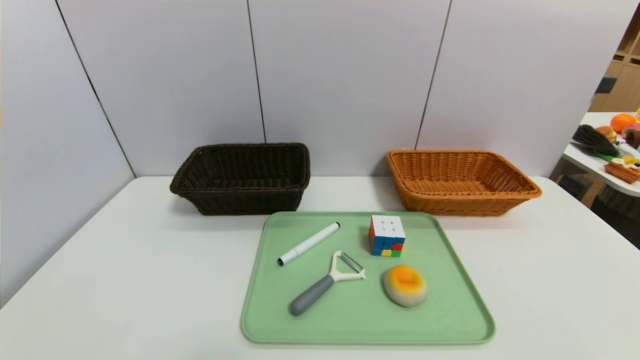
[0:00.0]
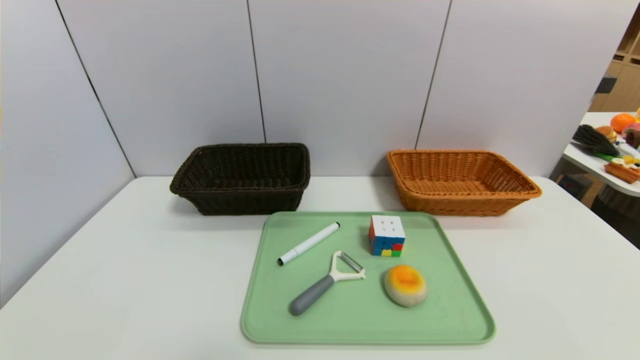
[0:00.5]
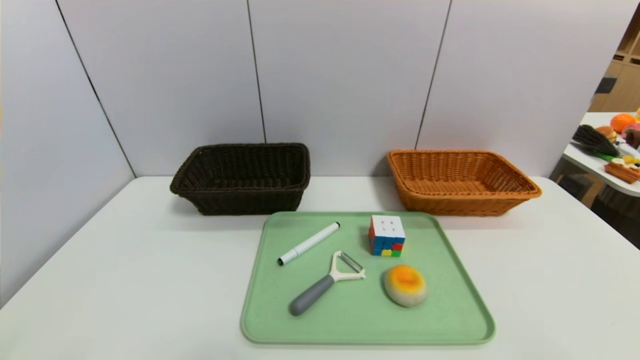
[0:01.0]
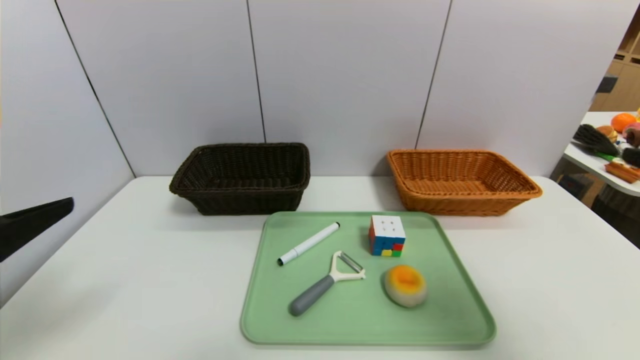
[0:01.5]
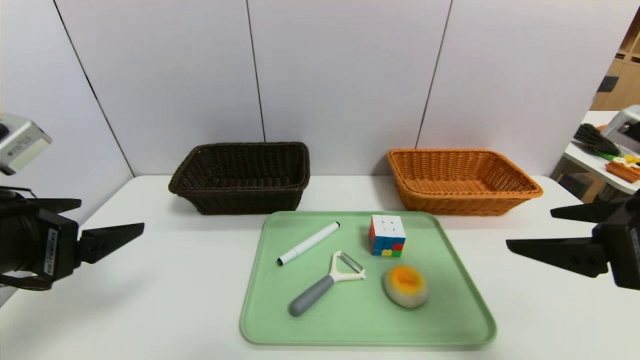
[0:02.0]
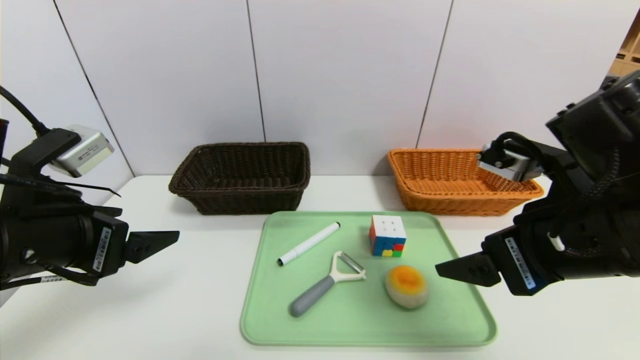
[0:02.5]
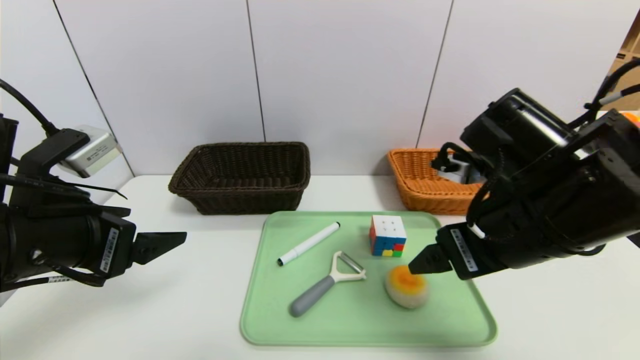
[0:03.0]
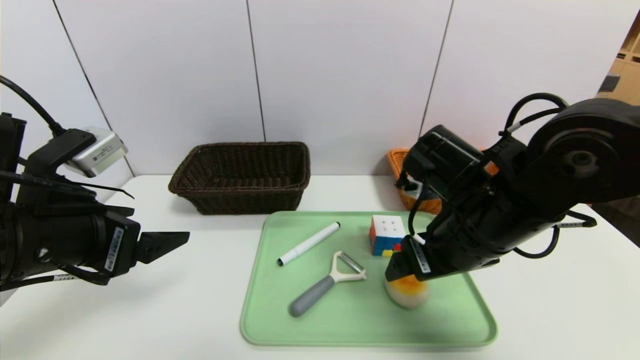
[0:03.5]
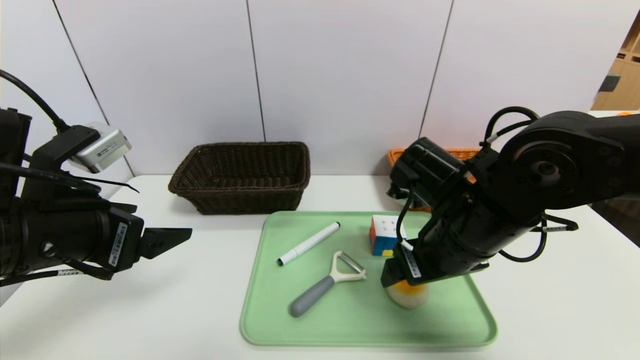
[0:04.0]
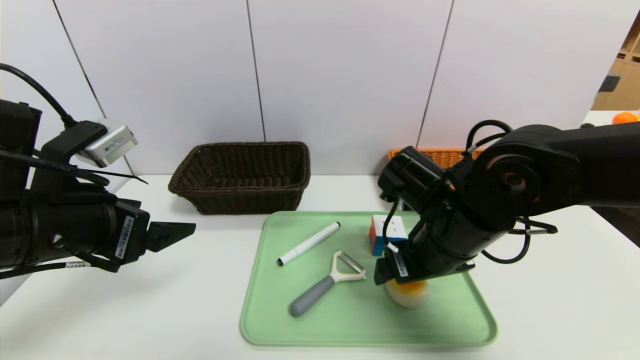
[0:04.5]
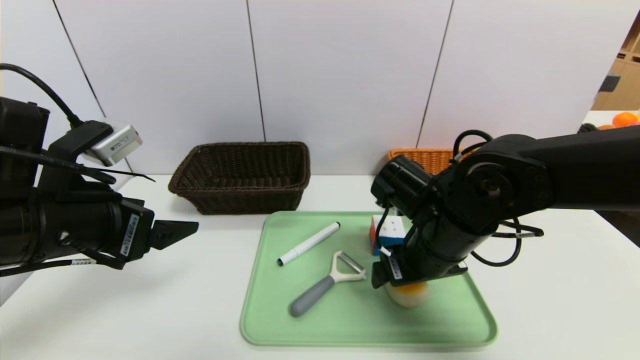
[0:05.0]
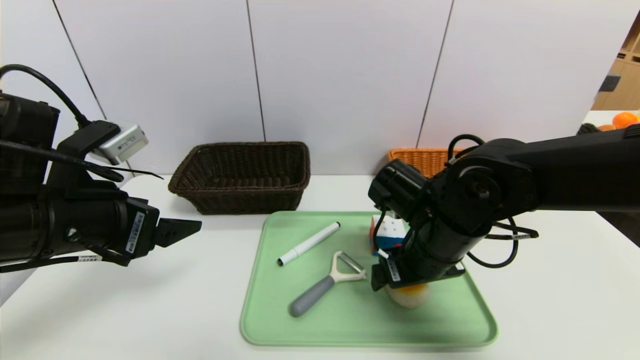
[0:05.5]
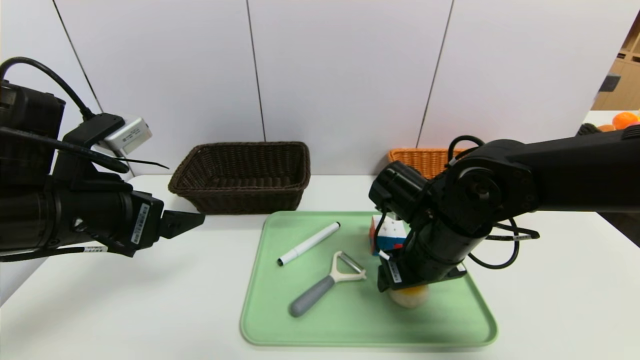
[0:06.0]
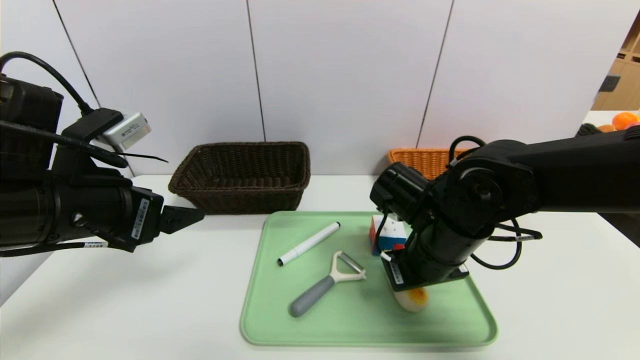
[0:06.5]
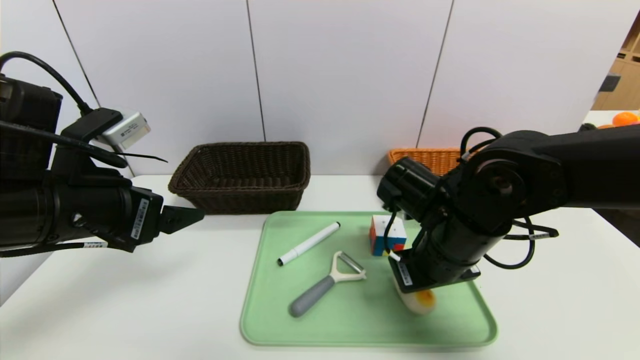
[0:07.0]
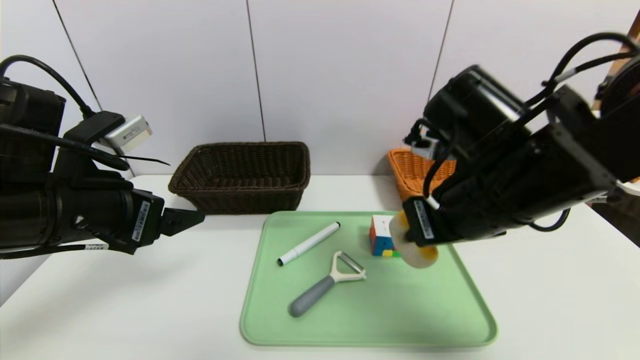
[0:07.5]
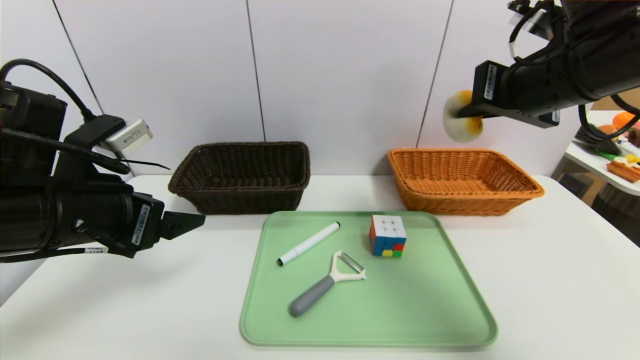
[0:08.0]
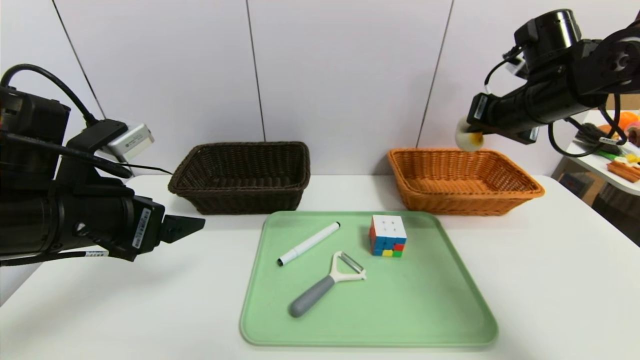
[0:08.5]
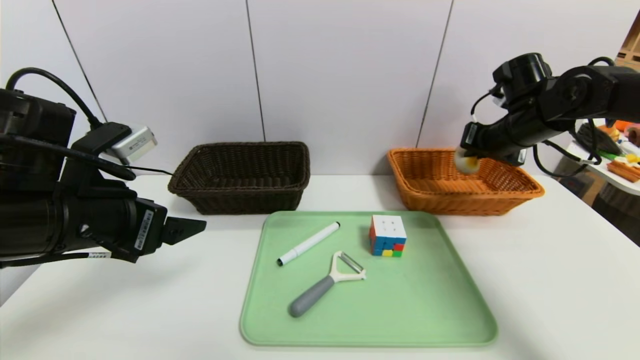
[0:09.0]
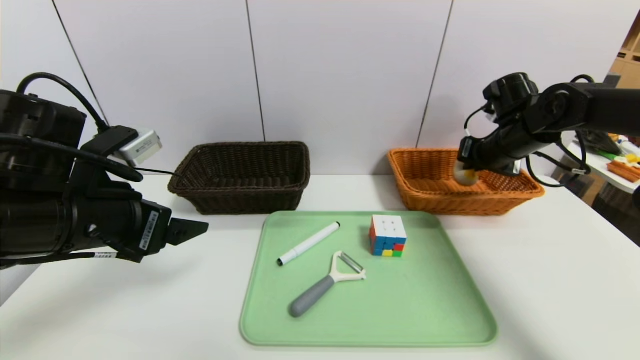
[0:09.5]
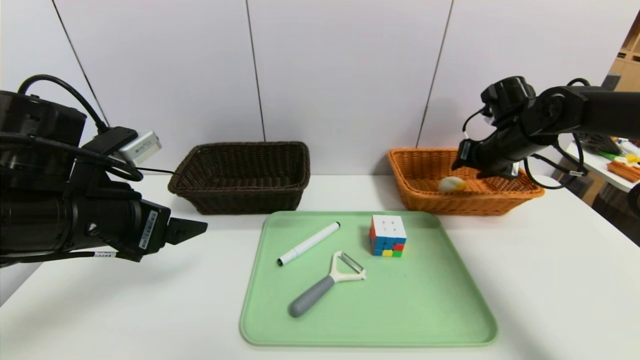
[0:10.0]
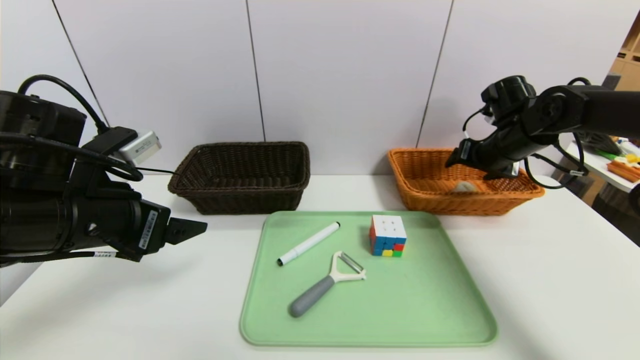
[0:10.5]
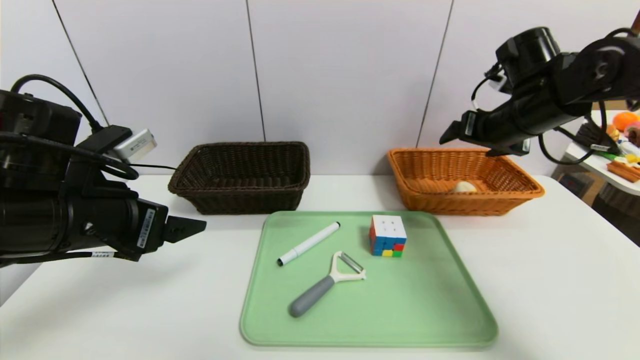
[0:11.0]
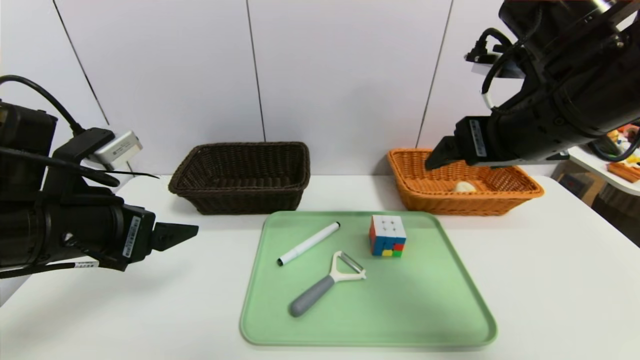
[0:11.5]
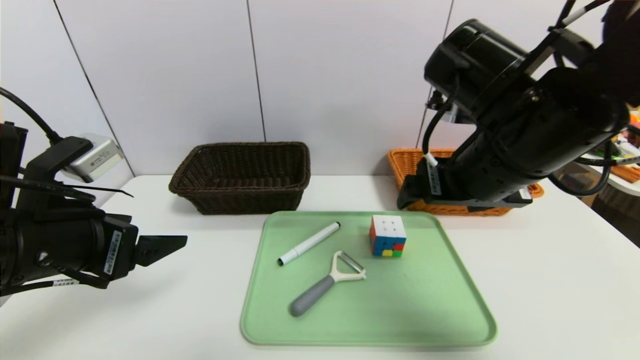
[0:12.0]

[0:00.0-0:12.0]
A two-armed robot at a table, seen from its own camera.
Task of the whole recording: place the food in the right basket with the right gripper, and place the non food items in the left basket with the left gripper.
Step, 0:00.0 to 0:06.5: Grasp the egg yolk pastry and put it in the right basket.
0:00.0 to 0:02.0: Both grippers travel together upward and forward, some 25 cm.
0:02.0 to 0:04.0: The right gripper travels to the left, forward and downward by some 20 cm.
0:04.0 to 0:06.0: The grippers stay close to where they were, moving slightly.
0:06.0 to 0:08.0: The right gripper heads upward and to the right, covering approximately 20 cm, and closes up.
0:08.0 to 0:10.0: The right gripper moves forward, downward and to the right, about 20 cm, and opens.
0:10.0 to 0:12.0: The right gripper heads backward, to the left and upward, covering about 25 cm, and opens.

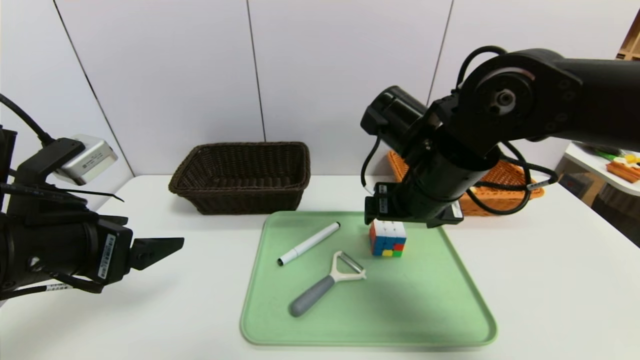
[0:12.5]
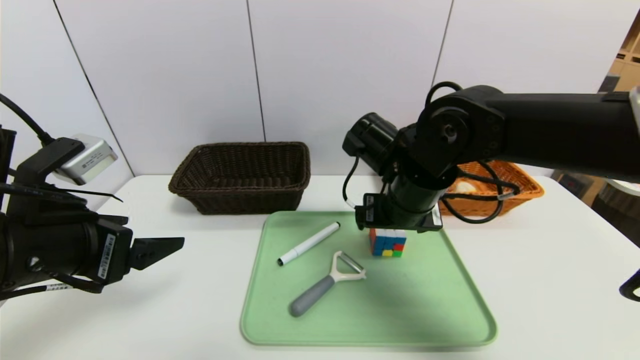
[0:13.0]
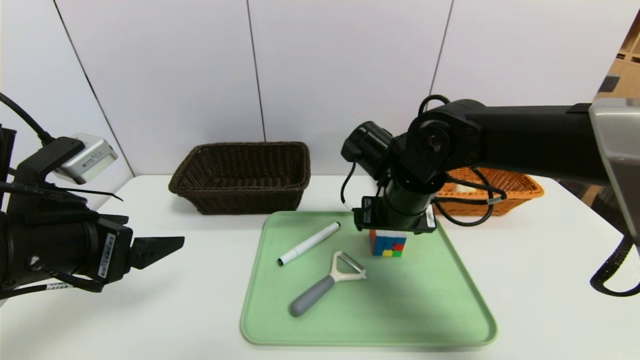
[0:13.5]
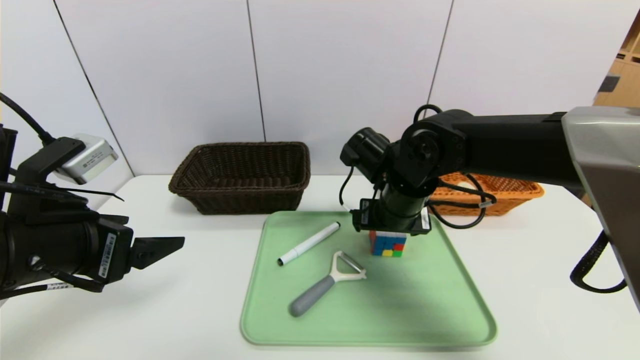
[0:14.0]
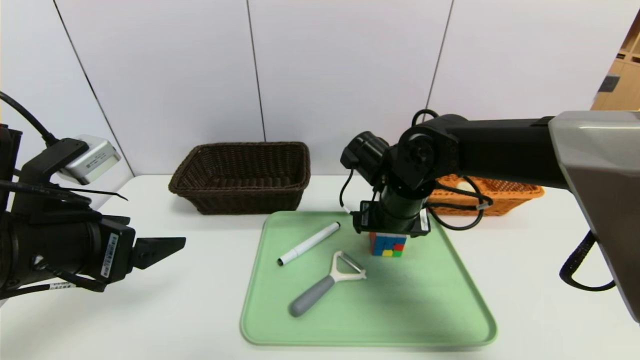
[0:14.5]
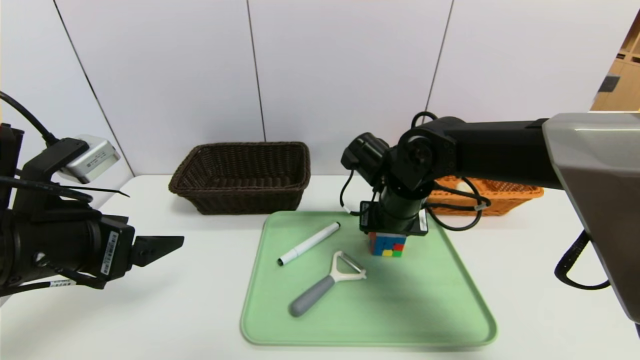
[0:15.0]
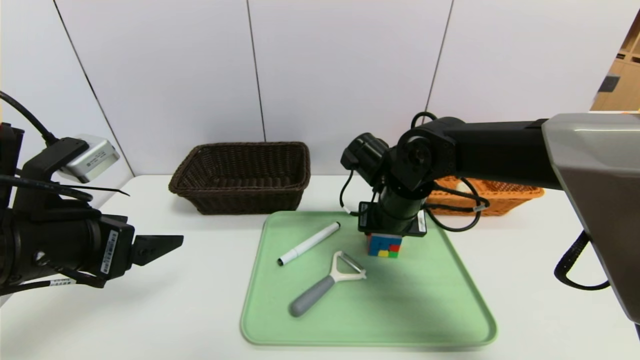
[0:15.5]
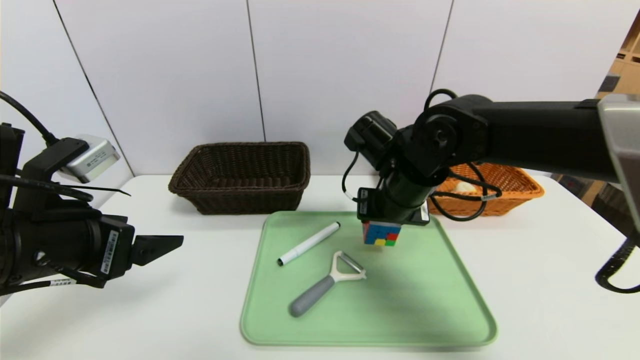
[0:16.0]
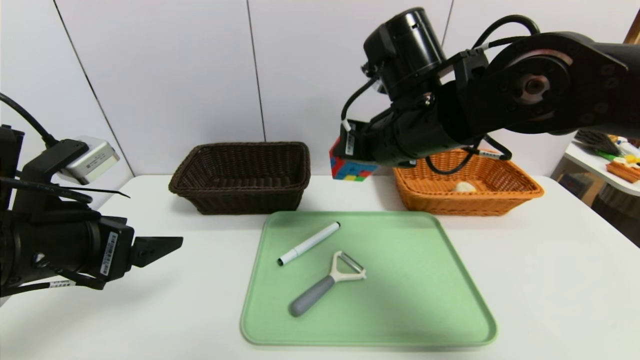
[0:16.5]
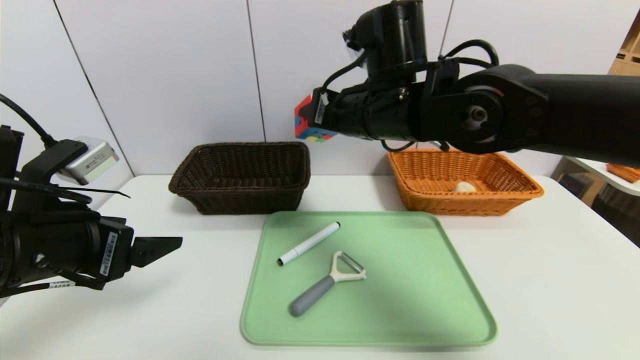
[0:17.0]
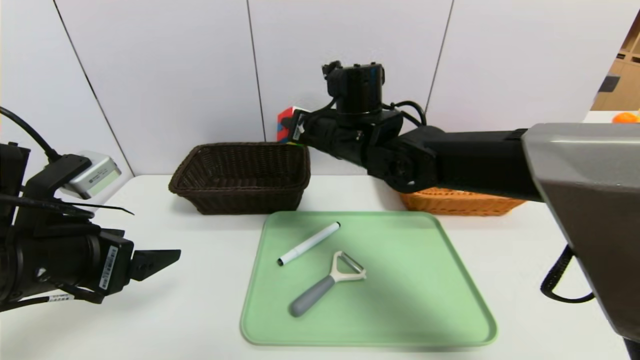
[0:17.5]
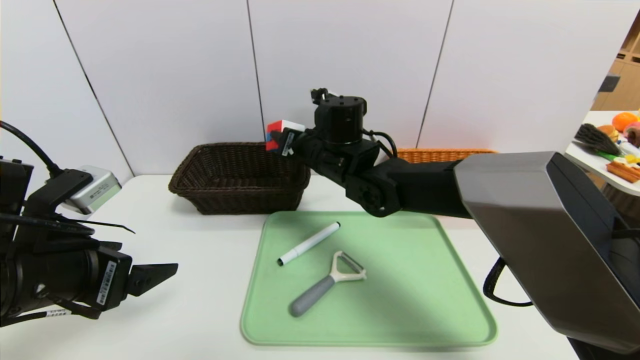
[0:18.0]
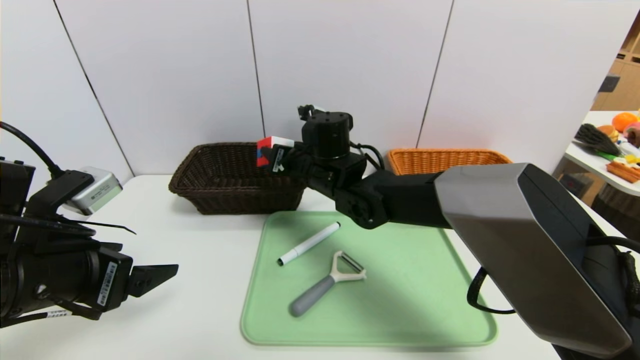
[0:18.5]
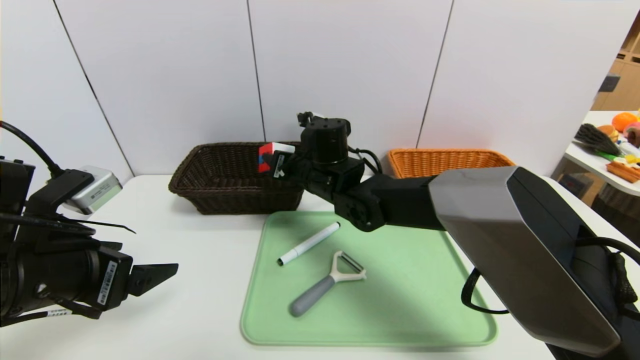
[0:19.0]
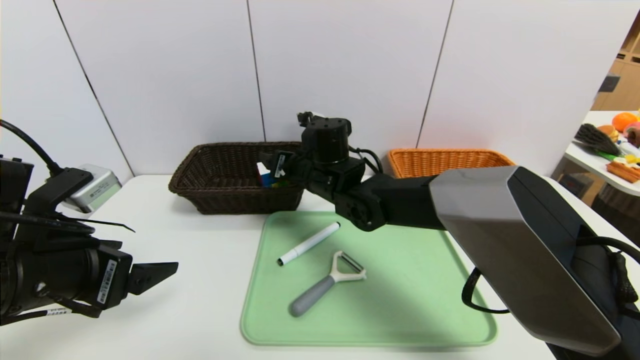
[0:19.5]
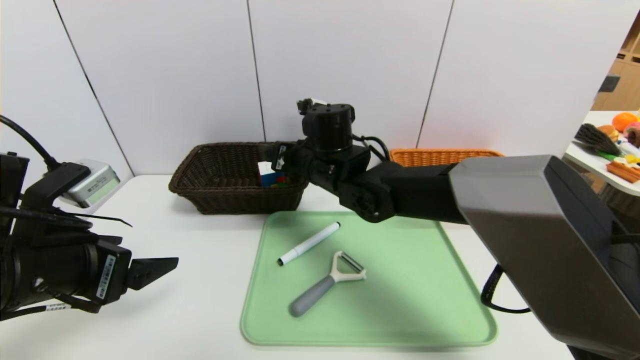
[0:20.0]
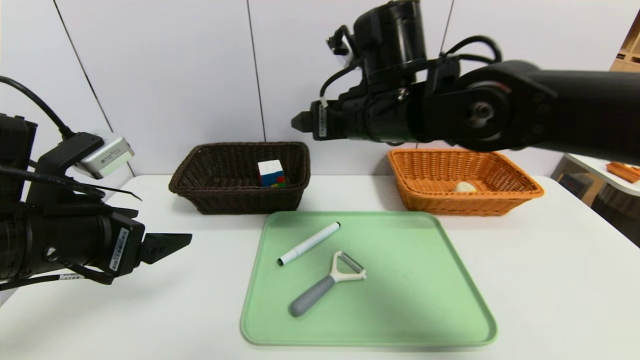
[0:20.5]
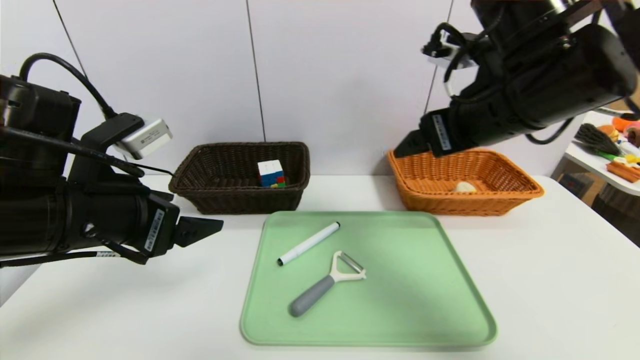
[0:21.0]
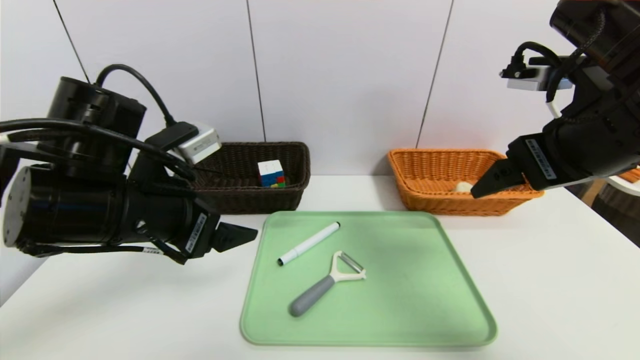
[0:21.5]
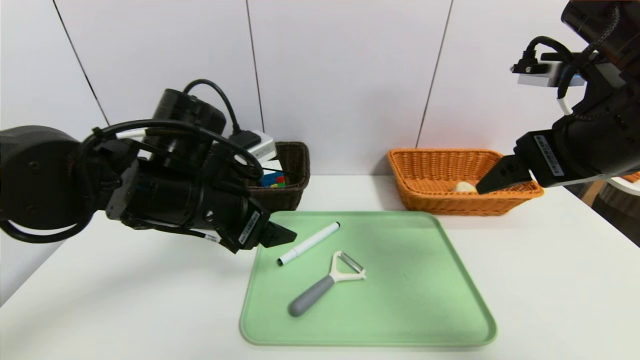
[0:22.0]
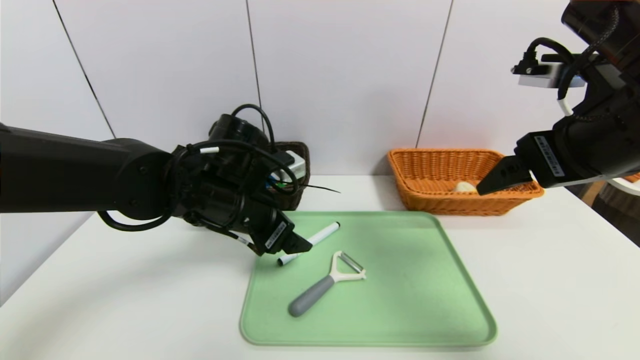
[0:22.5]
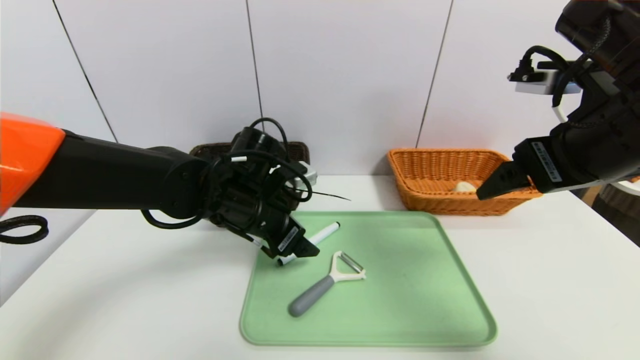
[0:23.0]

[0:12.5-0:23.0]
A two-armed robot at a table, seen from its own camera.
Task of the whole recording: place the food in the right basket with the right gripper, and place the non food items in the left basket with the left gripper.
0:12.5 to 0:14.5: The right gripper travels downward and forward by approximately 10 cm.
0:14.5 to 0:16.5: The right gripper moves upward, approximately 10 cm, and closes.
0:16.5 to 0:19.0: The right gripper heads downward, to the left and forward, covering about 20 cm.
0:19.0 to 0:21.0: The left gripper moves about 5 cm. Meanwhile the right gripper shifts roughly 25 cm to the right, upward and backward, and opens.
0:21.0 to 0:23.0: The right gripper shifts about 10 cm to the right and backward. Meanwhile the left gripper shifts some 20 cm to the right, forward and downward.
